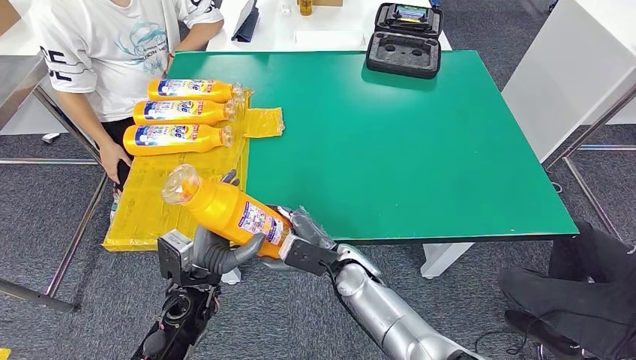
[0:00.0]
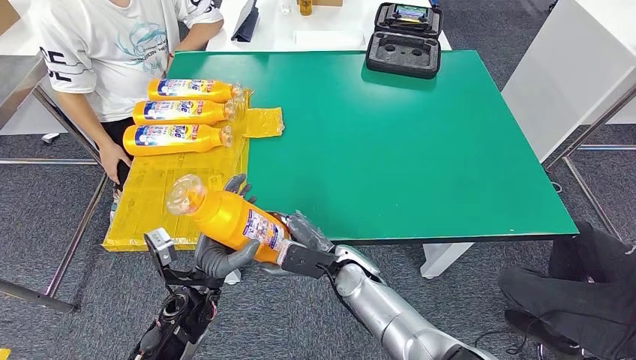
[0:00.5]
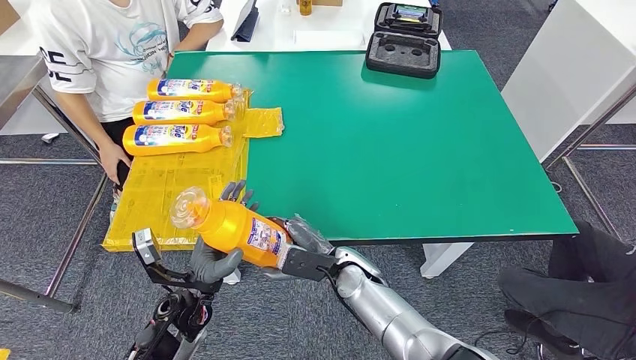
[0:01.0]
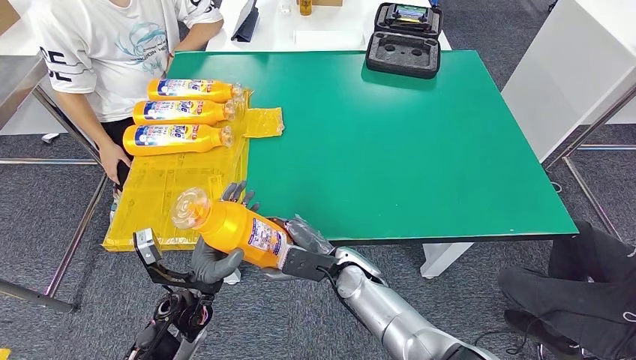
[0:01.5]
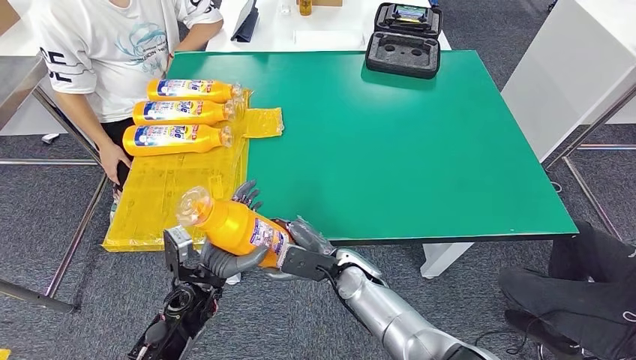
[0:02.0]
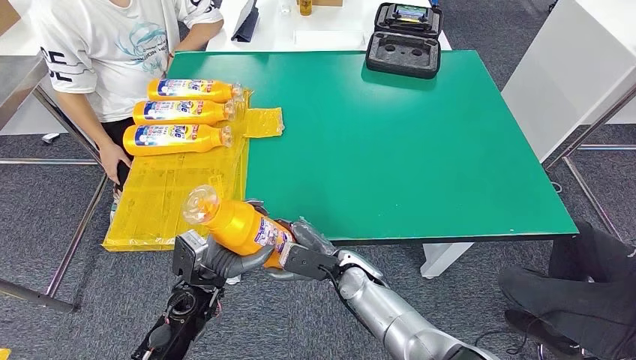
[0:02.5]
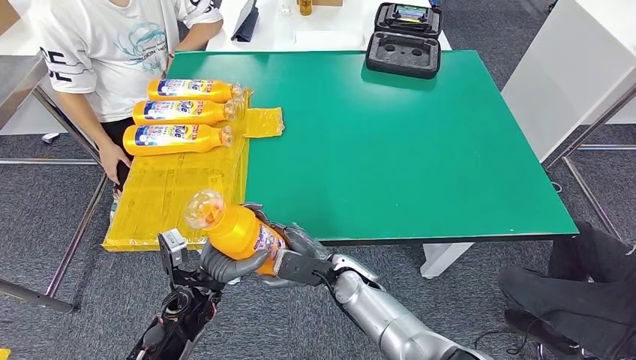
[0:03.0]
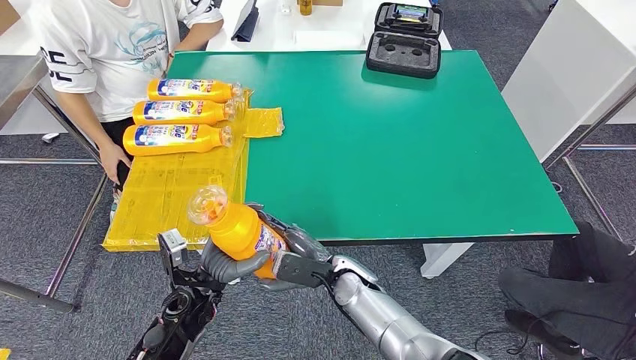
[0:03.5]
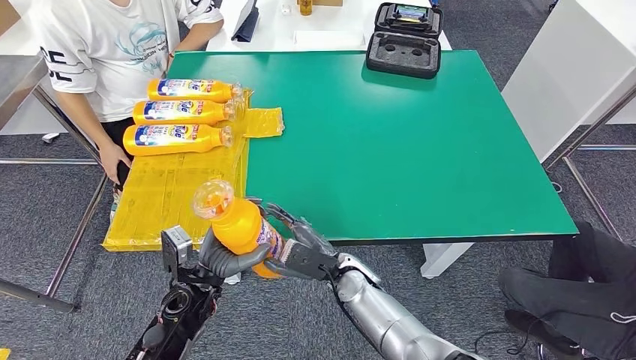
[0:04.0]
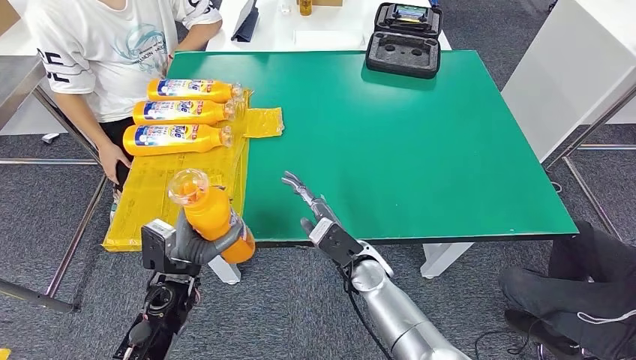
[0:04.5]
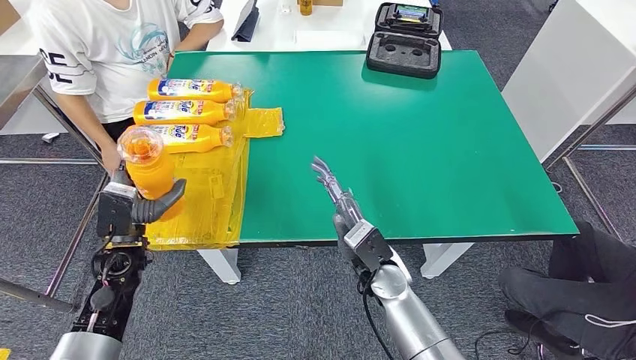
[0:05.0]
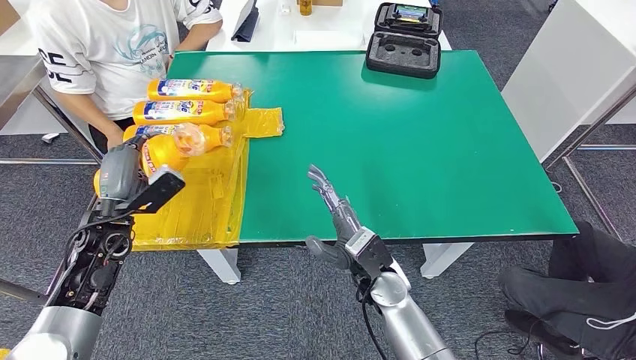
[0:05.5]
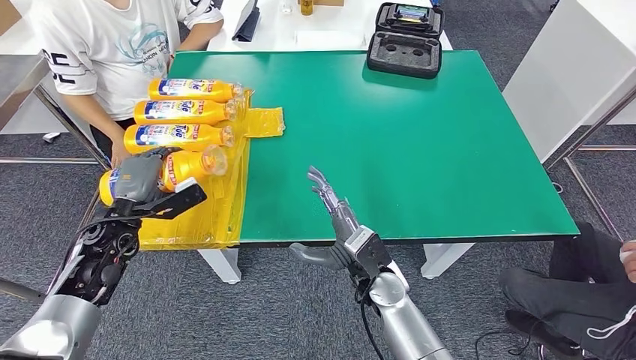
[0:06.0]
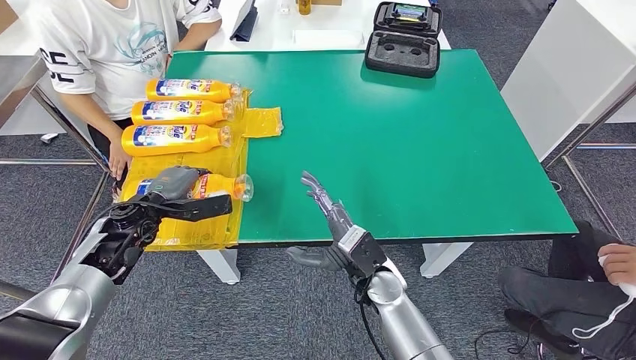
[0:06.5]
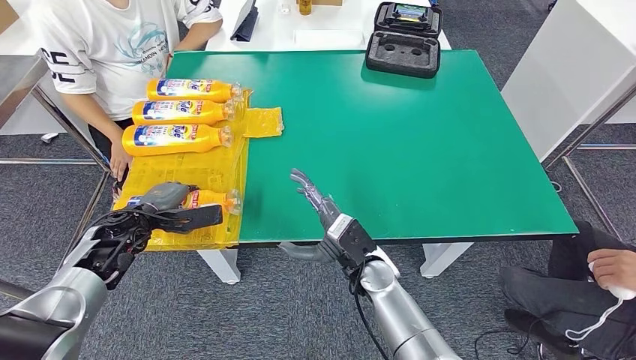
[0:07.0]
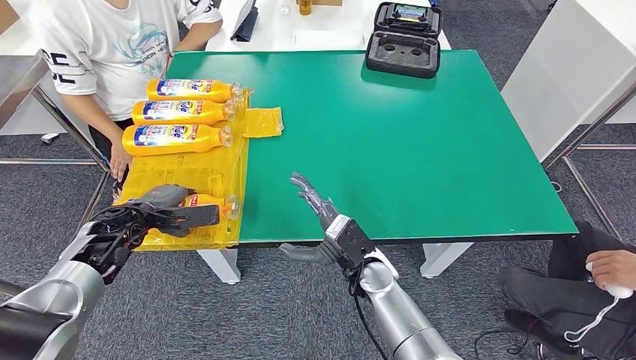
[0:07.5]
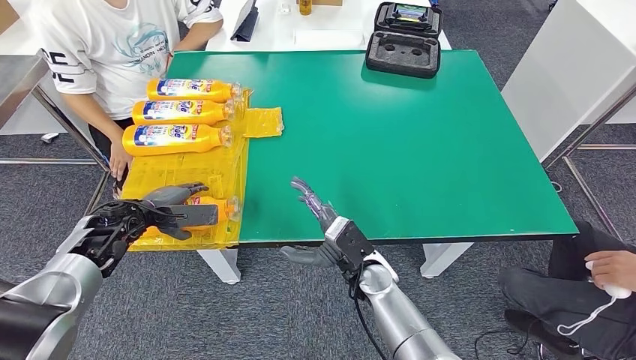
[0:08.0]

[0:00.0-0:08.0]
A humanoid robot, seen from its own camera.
Step, 0:00.0 to 0:08.0: Flip the fast-moving consumer goods bottle to the front side.
0:02.0 to 0:04.0: The hands move only a little.
0:04.0 to 0:06.0: The right hand changes place by roughly 5 cm. The left hand moves to the left, forward and upward, some 20 cm.

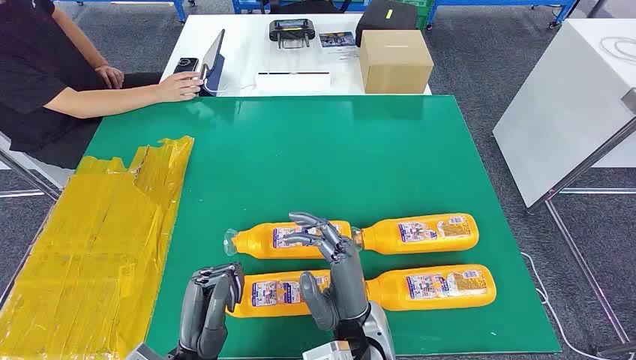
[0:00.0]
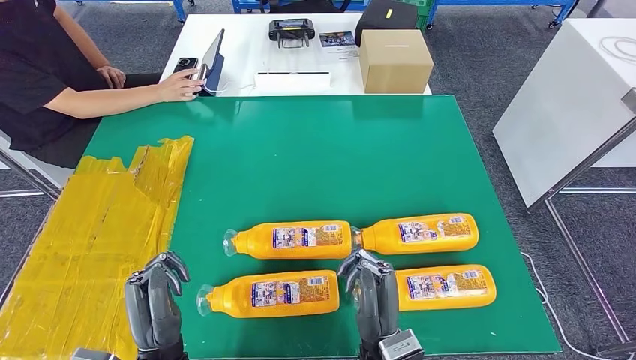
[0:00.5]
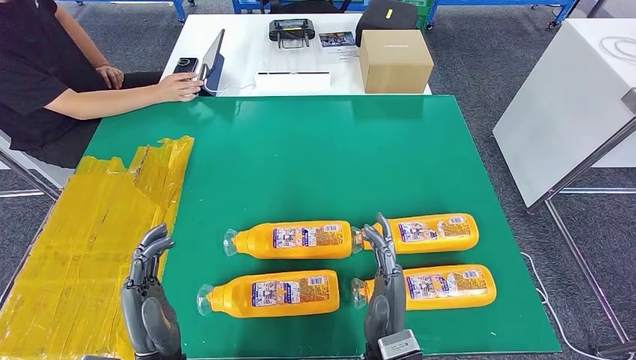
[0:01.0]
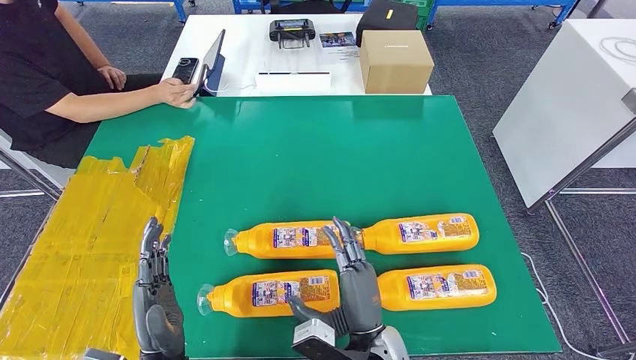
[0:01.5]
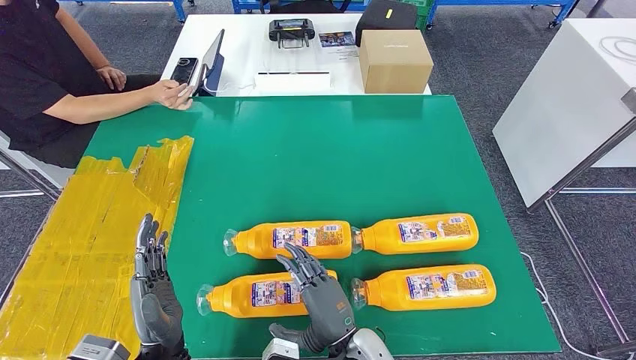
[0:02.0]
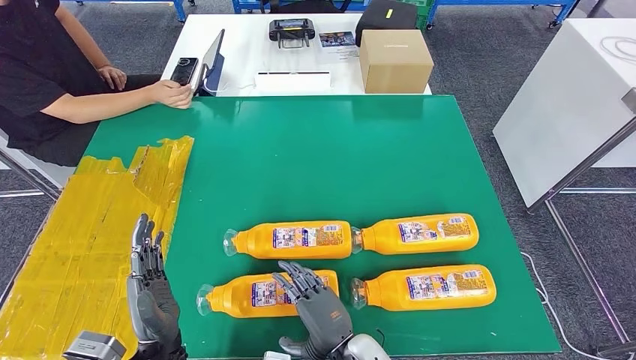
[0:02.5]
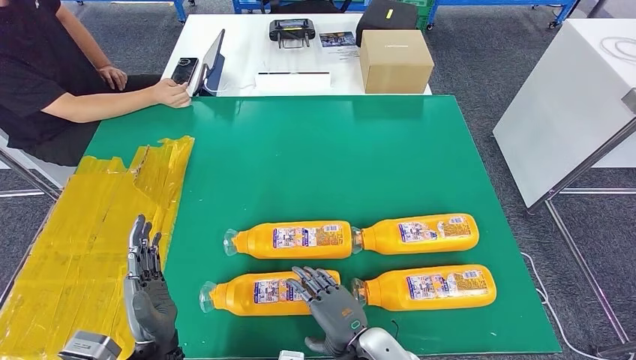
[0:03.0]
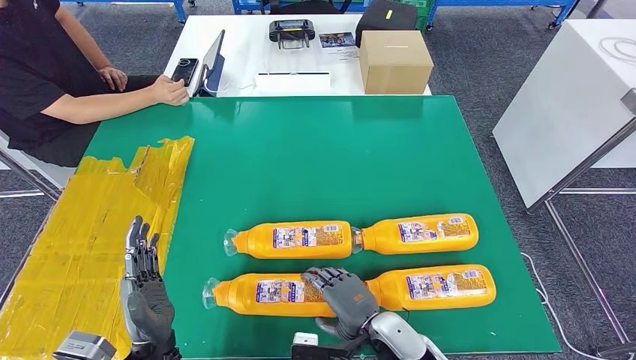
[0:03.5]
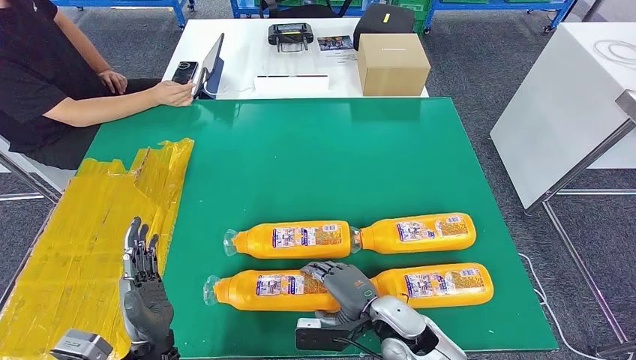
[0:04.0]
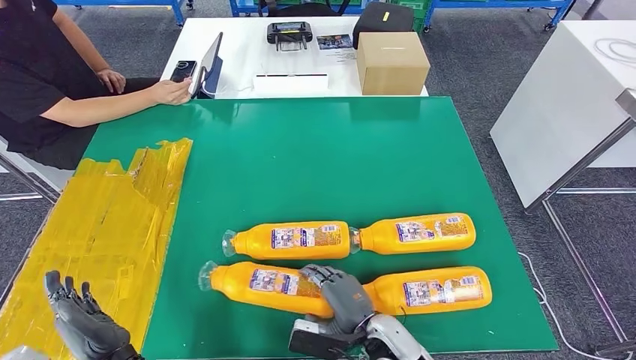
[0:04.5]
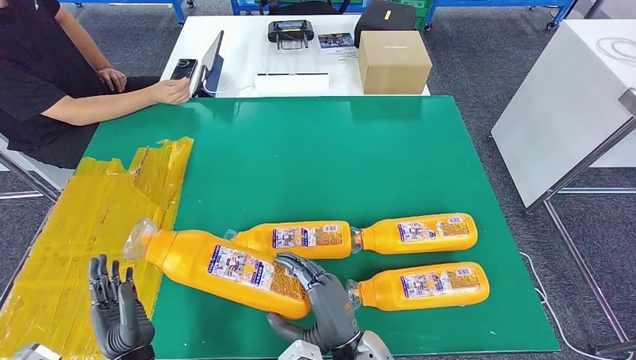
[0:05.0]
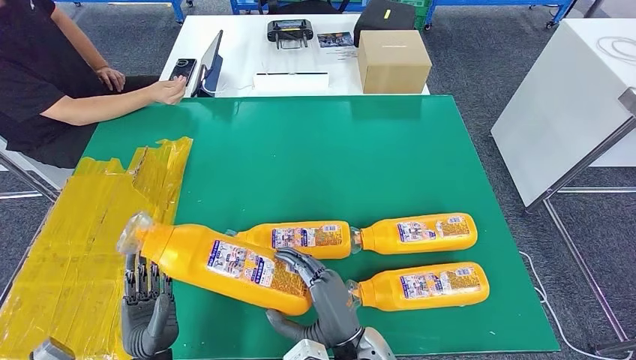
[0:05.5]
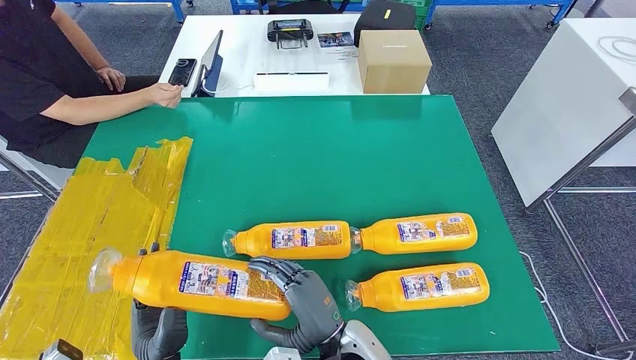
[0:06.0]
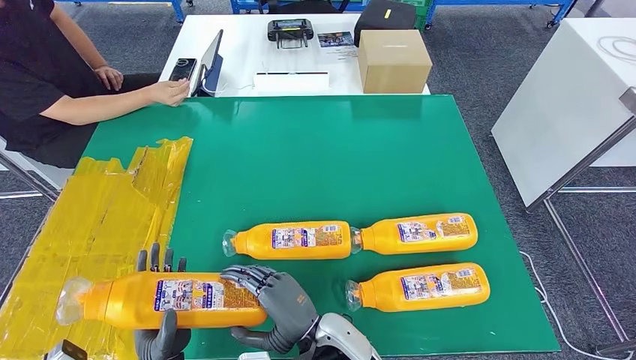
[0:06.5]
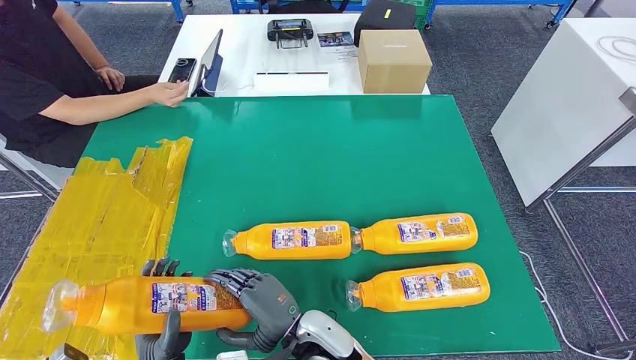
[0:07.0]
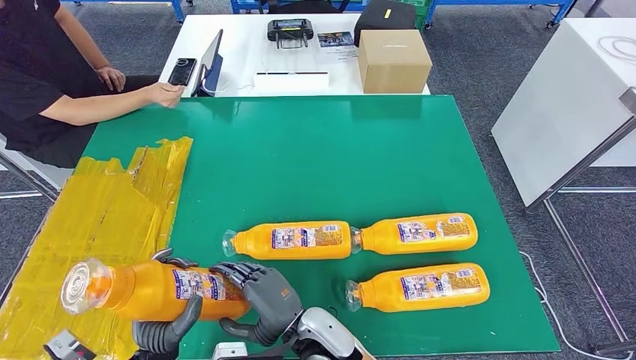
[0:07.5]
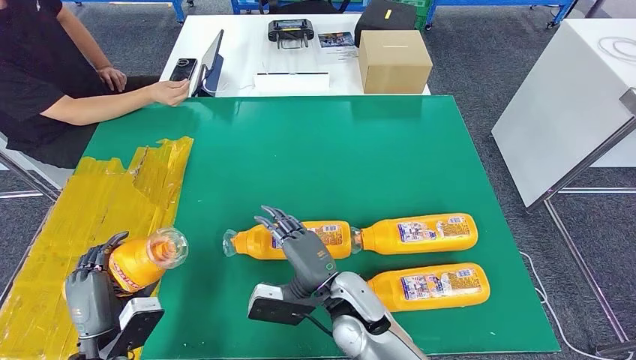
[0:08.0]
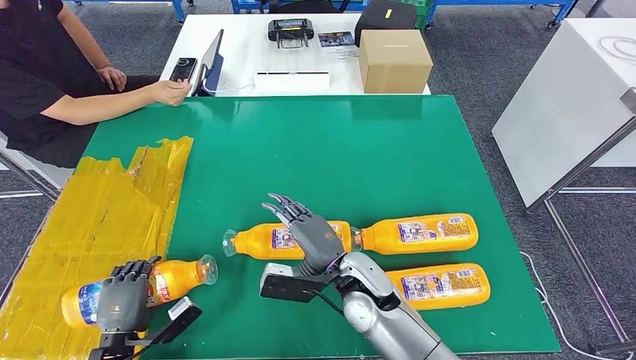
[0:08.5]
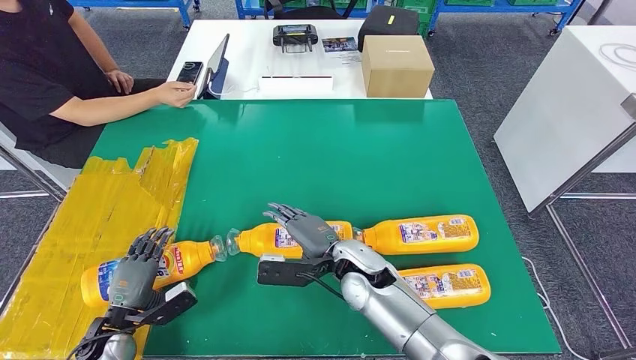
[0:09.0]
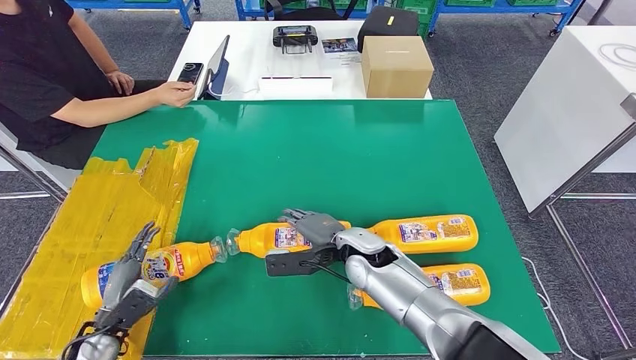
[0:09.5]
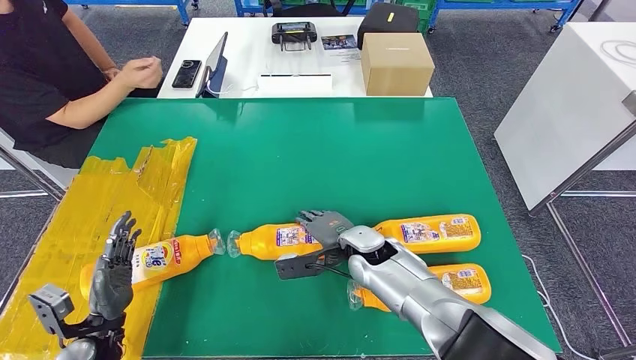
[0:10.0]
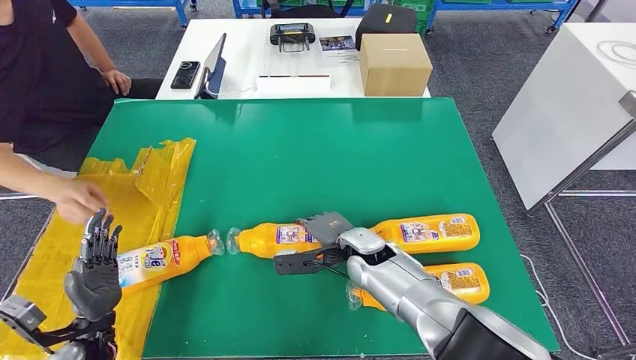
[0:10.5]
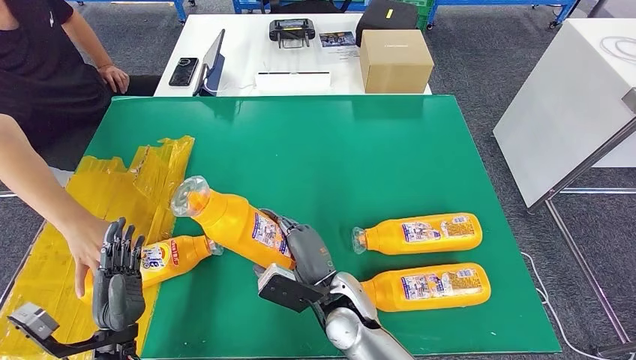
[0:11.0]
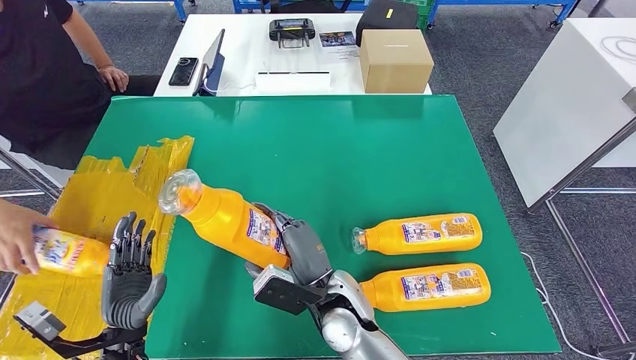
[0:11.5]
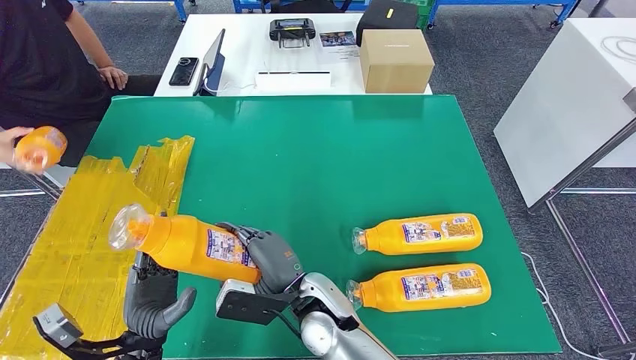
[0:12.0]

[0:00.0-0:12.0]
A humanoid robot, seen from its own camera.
Step, 0:00.0 to 0:05.5: Take the fast-moving consumer goods bottle from the table.
Step, 0:06.0 to 0:08.5: Flip the fast-moving consumer goods bottle to the front side.
0:02.0 to 0:04.0: The right hand heads to the right and forward, covering roughly 10 cm.
0:04.0 to 0:06.0: The right hand is displaced to the left, upward and backward by roughly 10 cm; the left hand shifts by roughly 5 cm.
0:06.0 to 0:08.0: The left hand is displaced to the left by approximately 10 cm; the right hand travels forward by roughly 5 cm.
